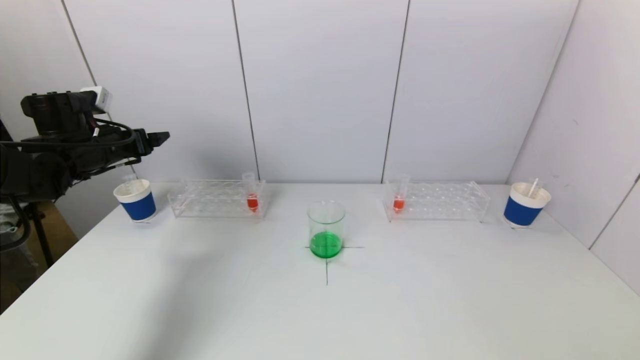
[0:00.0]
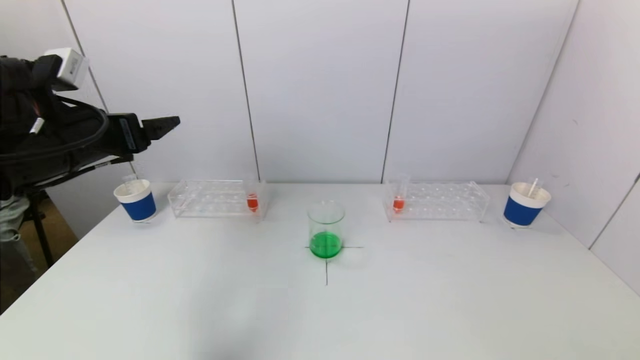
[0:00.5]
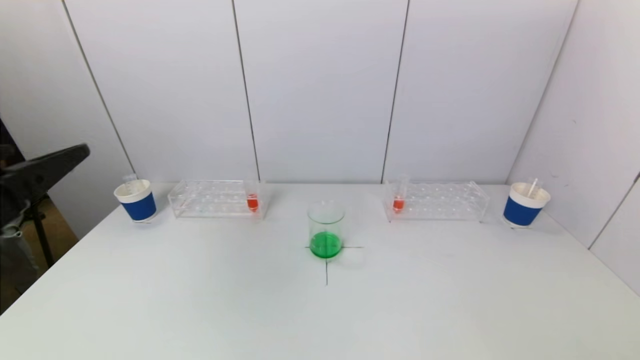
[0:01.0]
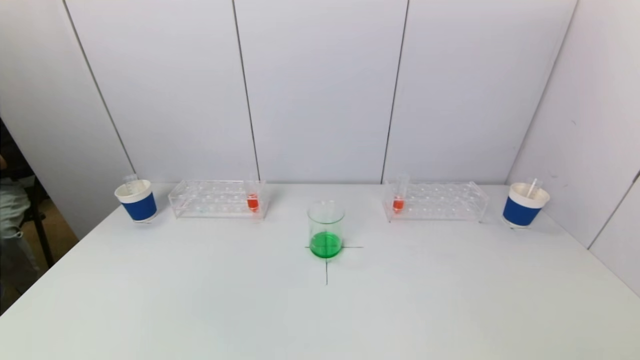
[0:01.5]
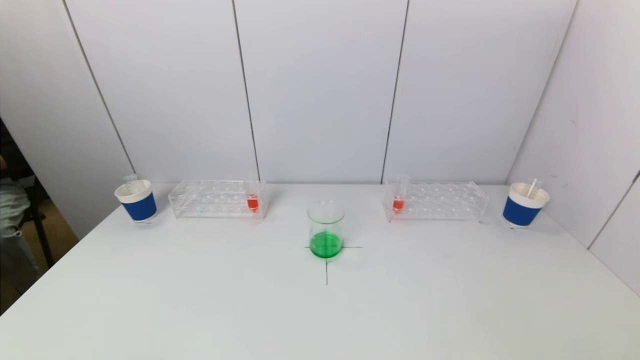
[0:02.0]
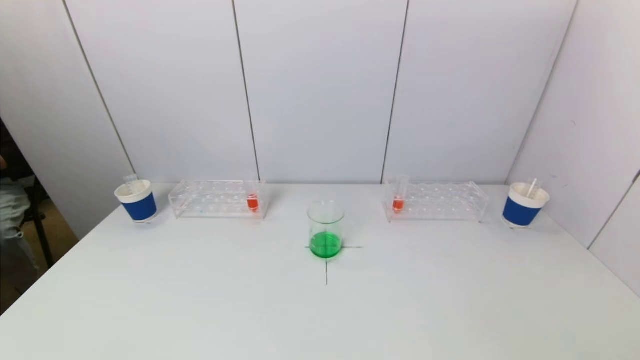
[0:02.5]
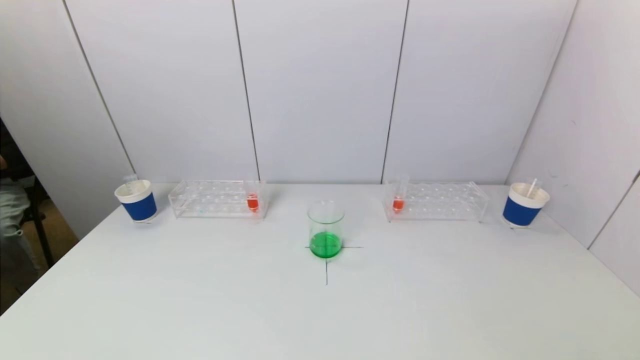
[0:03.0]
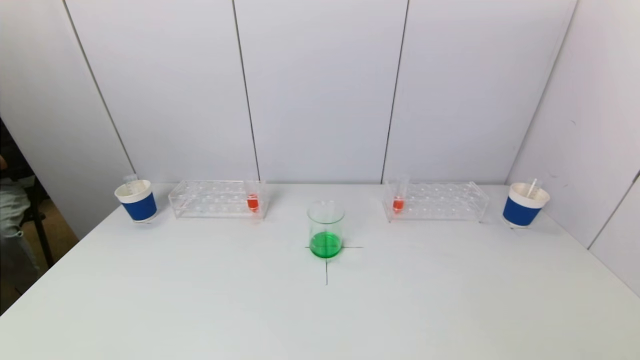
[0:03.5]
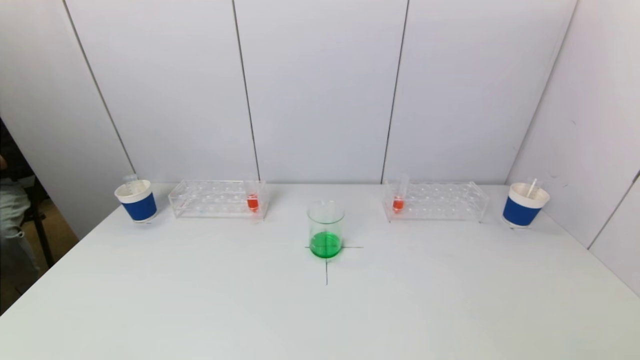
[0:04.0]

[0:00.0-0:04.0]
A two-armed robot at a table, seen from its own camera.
Task of the whole recording: pick up a test tube with pigment on left test tube rack and a test tube with pigment on right test tube rack by grippers and pour them into the beaker.
0:00.0 to 0:02.0: The left gripper moves backward, some 40 cm.
